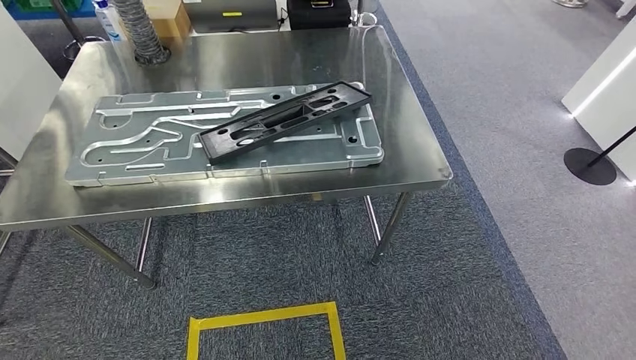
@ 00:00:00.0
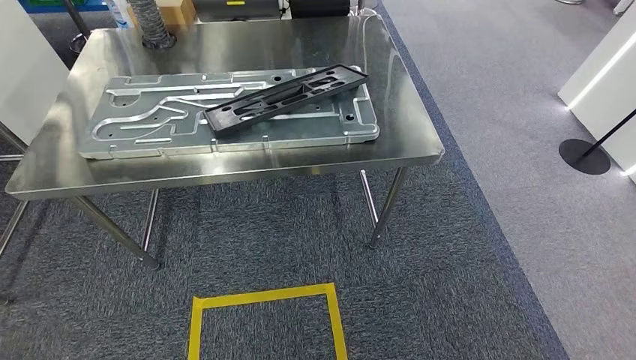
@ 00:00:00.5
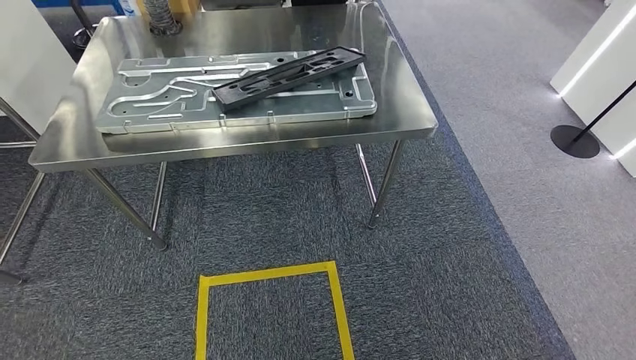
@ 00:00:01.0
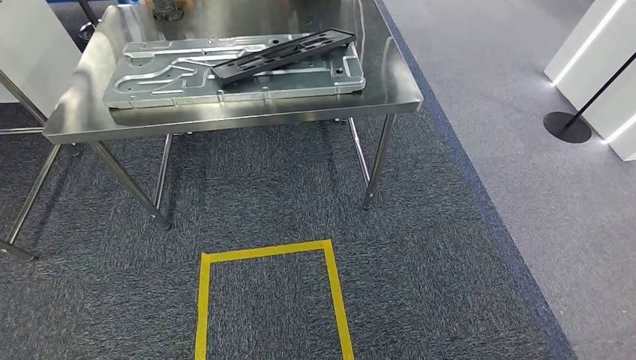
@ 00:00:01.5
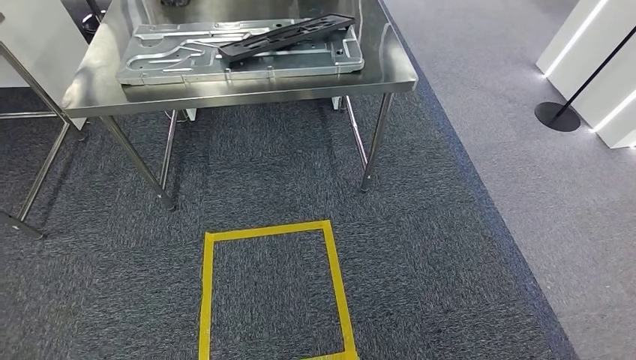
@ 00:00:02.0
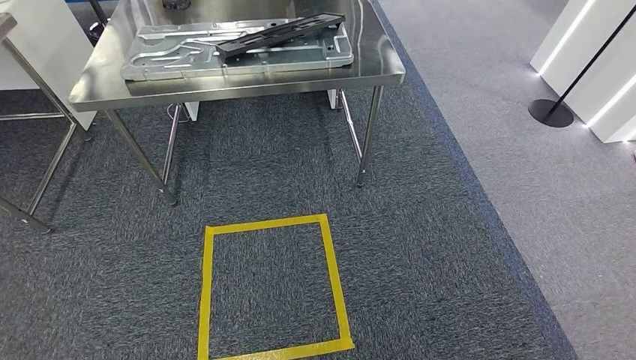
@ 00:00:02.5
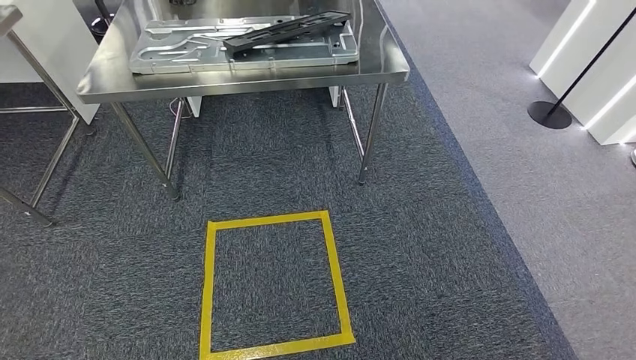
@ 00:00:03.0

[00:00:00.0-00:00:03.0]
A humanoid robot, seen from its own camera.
Step, 00:00:00.0 to 00:00:03.0: Move to the initial position of the shelf.
